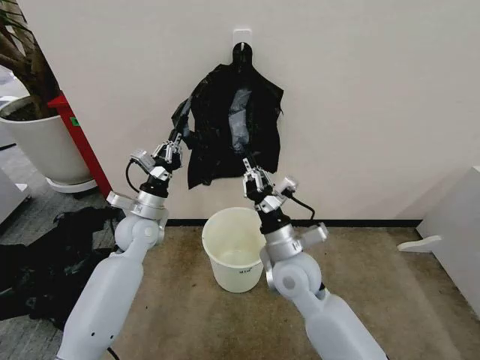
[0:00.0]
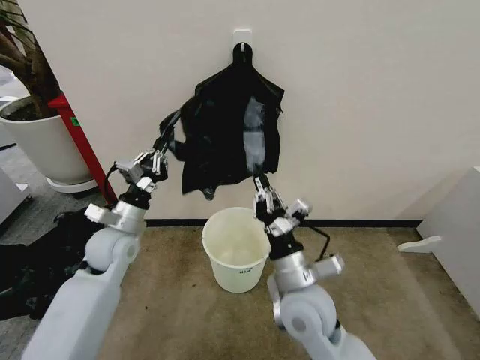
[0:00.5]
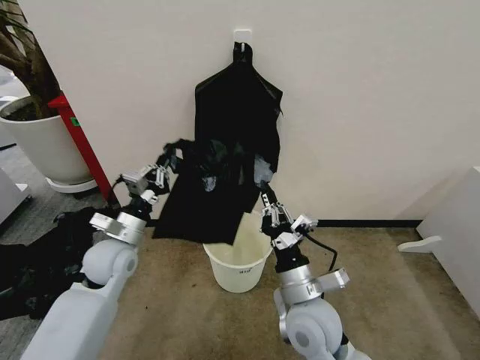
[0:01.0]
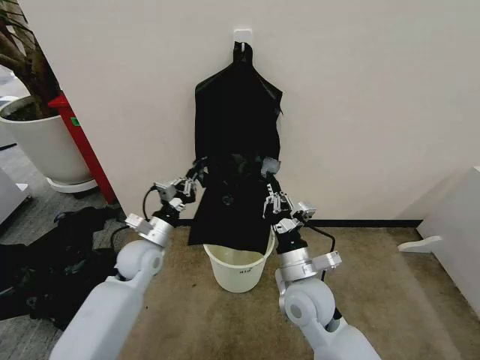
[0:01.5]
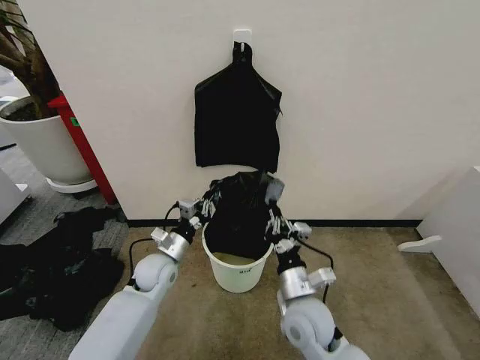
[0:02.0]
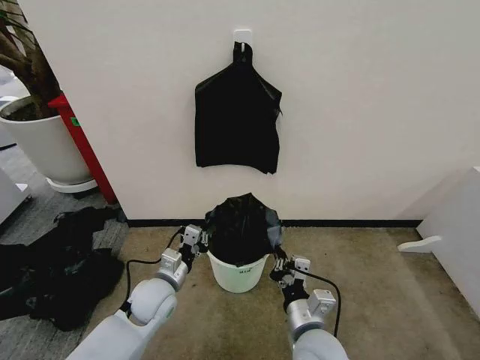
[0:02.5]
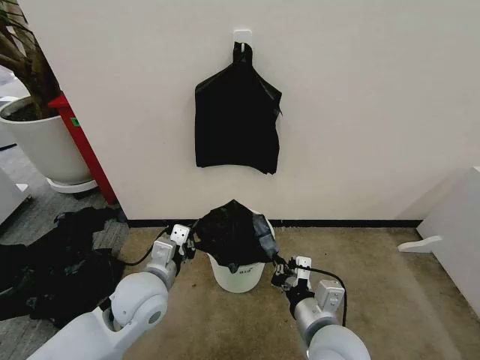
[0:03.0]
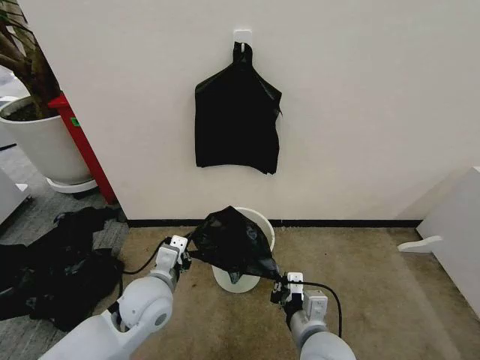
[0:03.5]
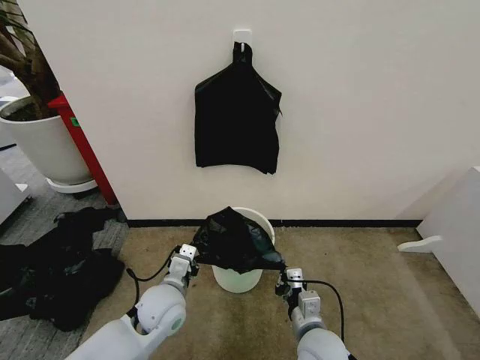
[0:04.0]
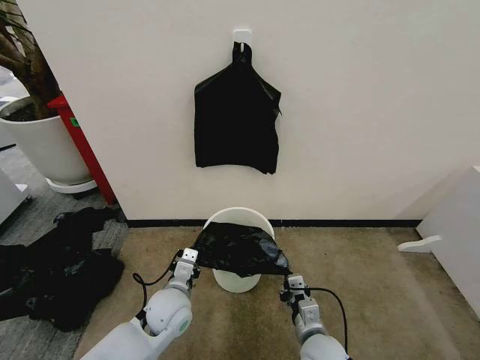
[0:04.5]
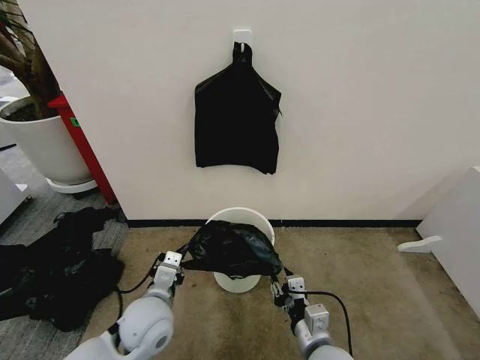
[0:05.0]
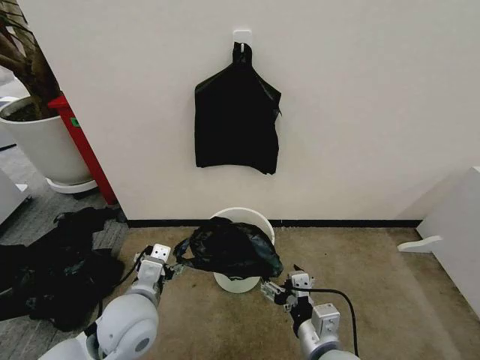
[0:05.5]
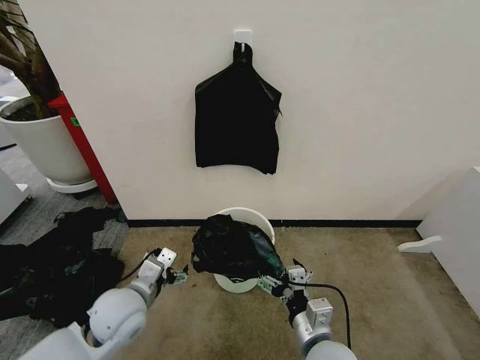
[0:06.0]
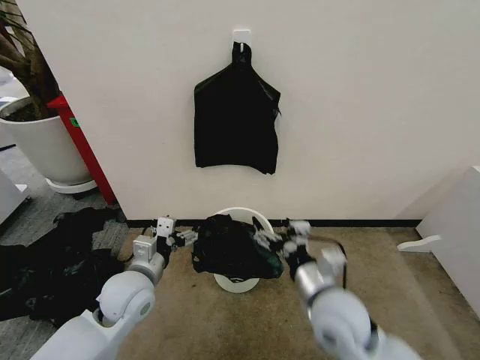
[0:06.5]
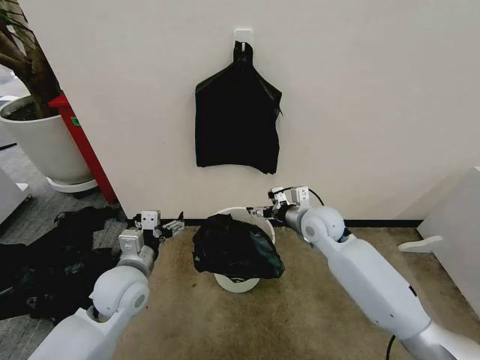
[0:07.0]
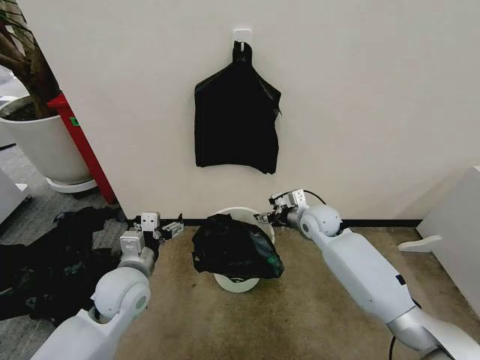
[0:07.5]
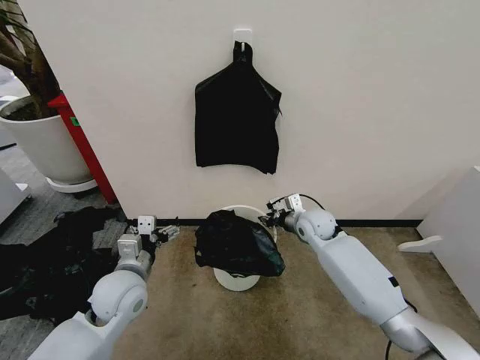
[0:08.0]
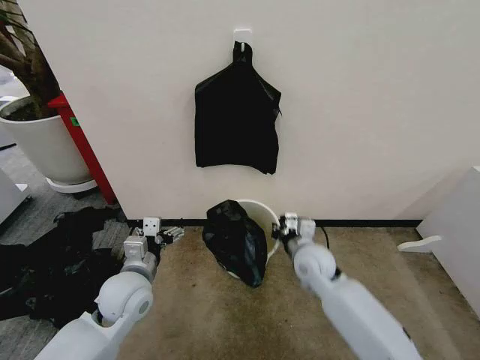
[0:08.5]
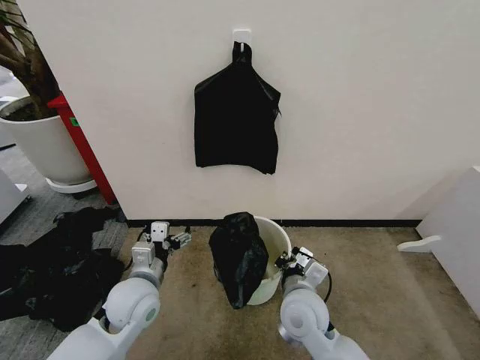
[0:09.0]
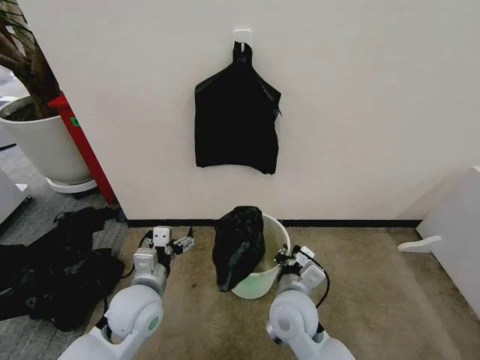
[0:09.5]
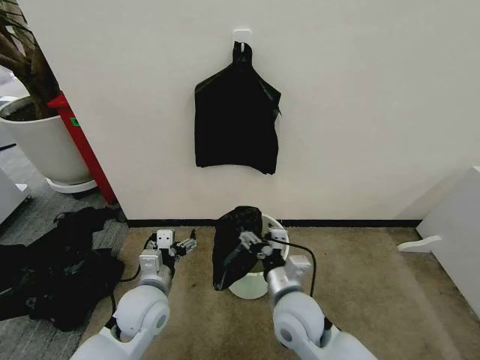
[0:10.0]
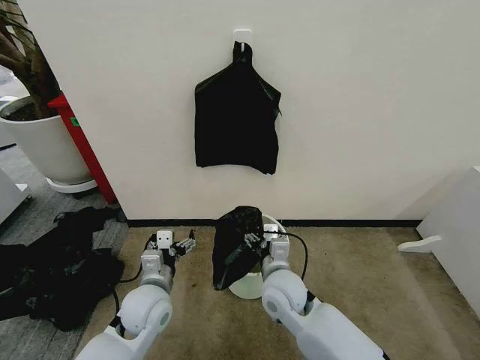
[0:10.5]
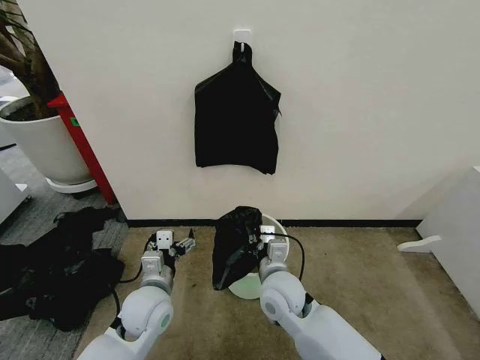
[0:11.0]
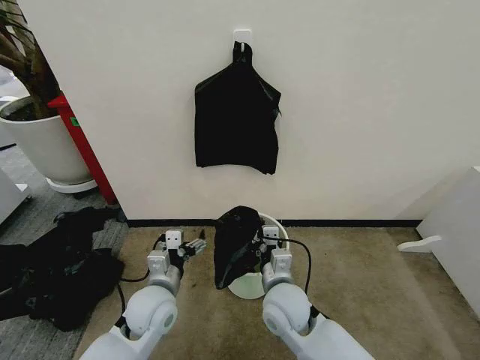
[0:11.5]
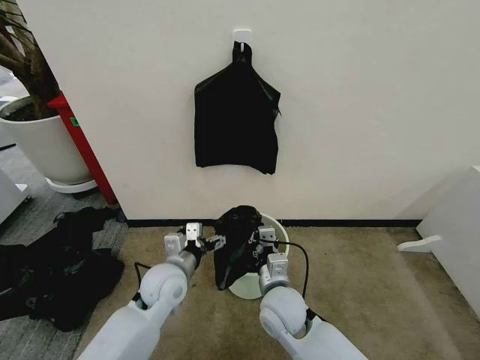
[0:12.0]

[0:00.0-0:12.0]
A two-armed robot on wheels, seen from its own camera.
Task of the whole recording: Place the garbage bag over the trash bin.
0:00.0 to 0:02.0: The right gripper travels backward and downward by about 10 cm. The left gripper is displaced downward and backward by roughly 10 cm.
0:02.0 to 0:04.0: The right gripper ends up approximately 5 cm from where it was. Meanwhile the left gripper travels backward and to the right by roughly 10 cm, and goes upward and returns, about 10 cm each way.
0:04.0 to 0:06.0: The right gripper moves upward, about 5 cm, and opens; the left gripper travels to the left by approximately 5 cm, and opens.
0:06.0 to 0:08.0: The right gripper heads forward, covering about 30 cm, and closes its fingers.
0:08.0 to 0:10.0: The right gripper moves backward and to the left, roughly 25 cm, and opens its fingers; the left gripper ends up about 5 cm from where it was.
0:10.0 to 0:12.0: The right gripper closes; the left gripper goes roughly 5 cm forward.

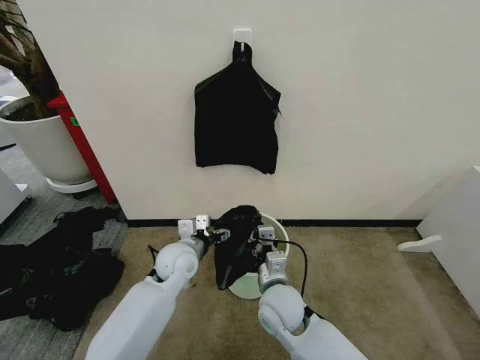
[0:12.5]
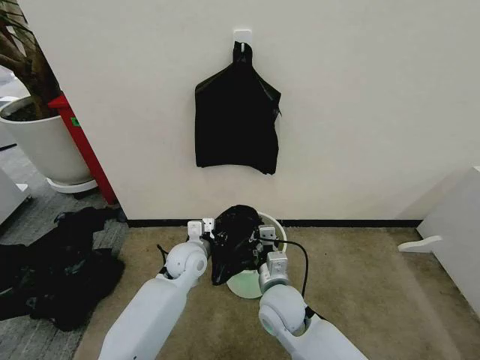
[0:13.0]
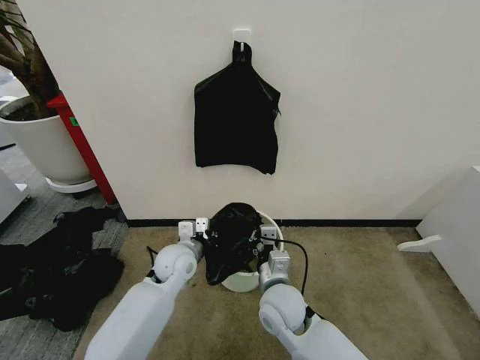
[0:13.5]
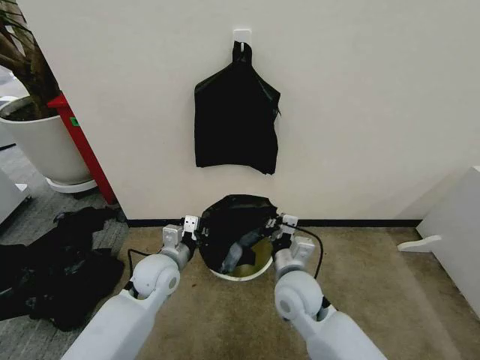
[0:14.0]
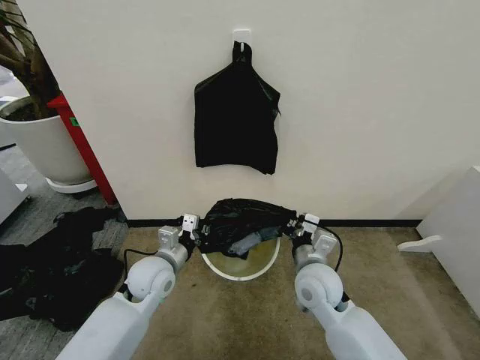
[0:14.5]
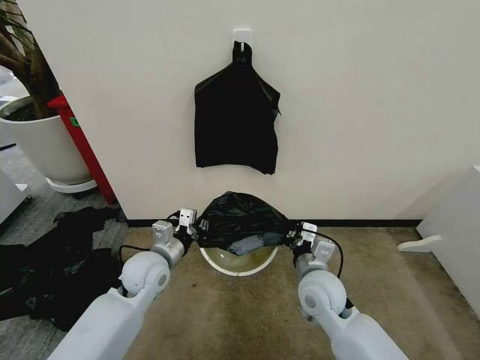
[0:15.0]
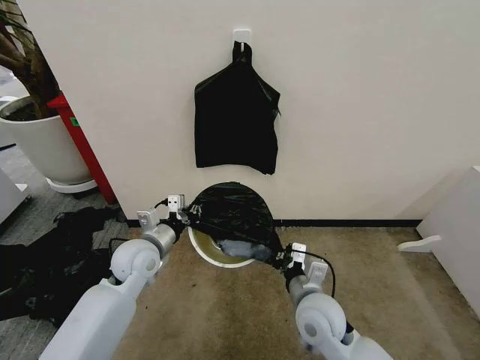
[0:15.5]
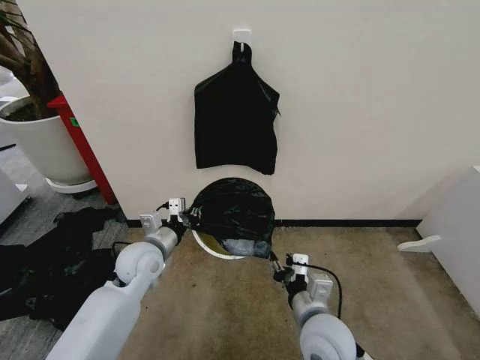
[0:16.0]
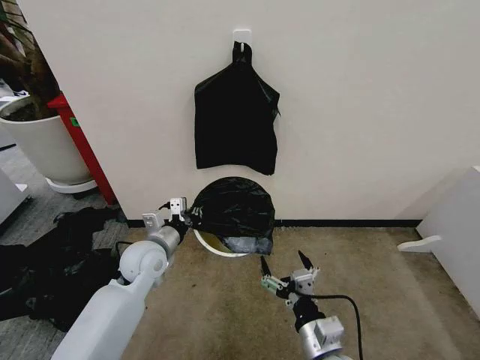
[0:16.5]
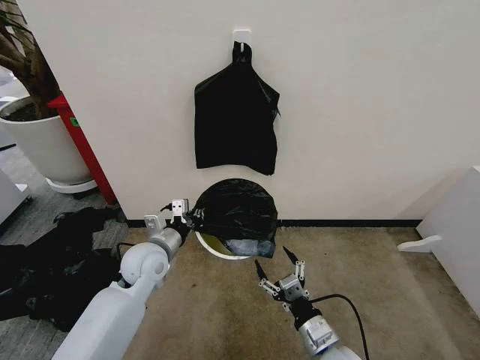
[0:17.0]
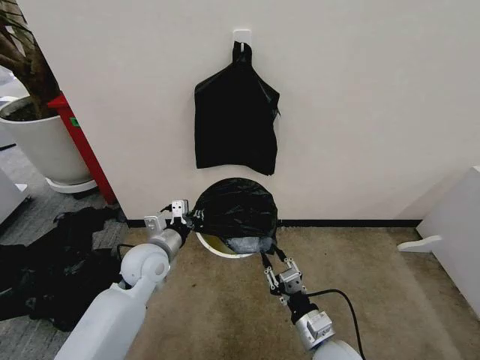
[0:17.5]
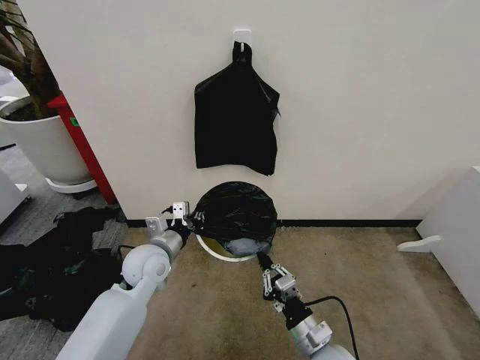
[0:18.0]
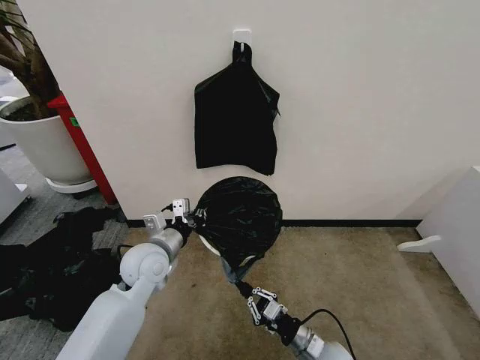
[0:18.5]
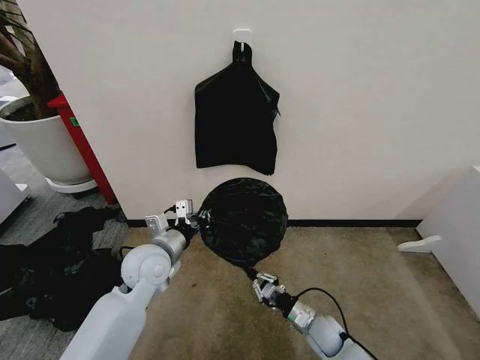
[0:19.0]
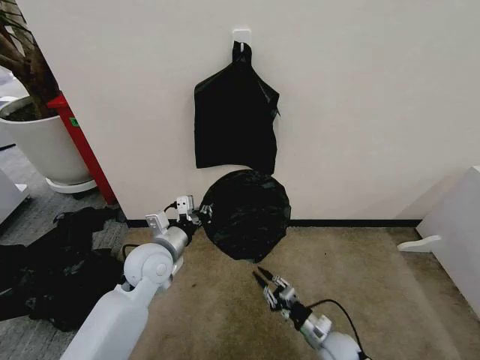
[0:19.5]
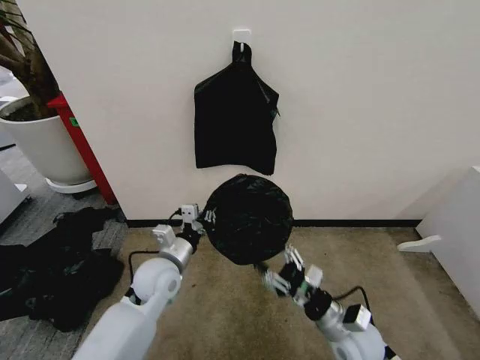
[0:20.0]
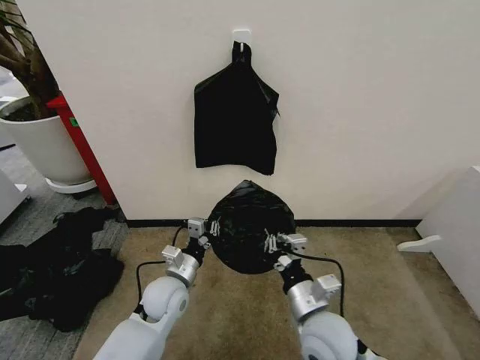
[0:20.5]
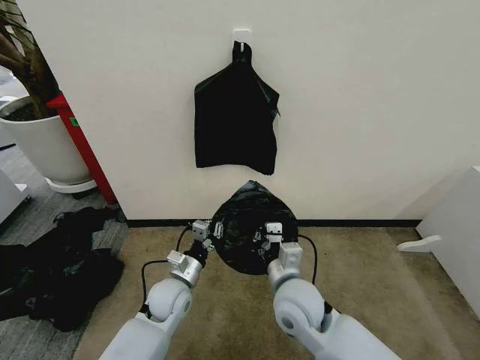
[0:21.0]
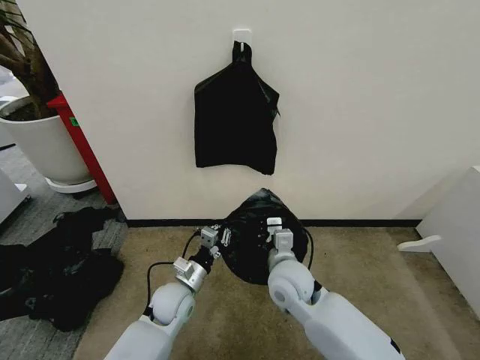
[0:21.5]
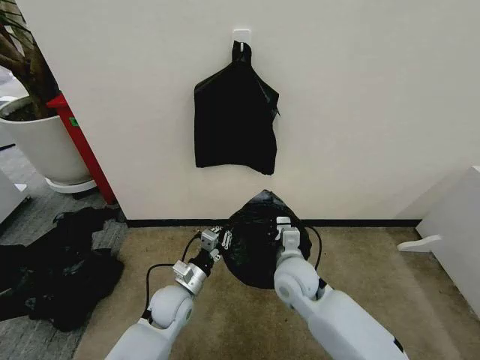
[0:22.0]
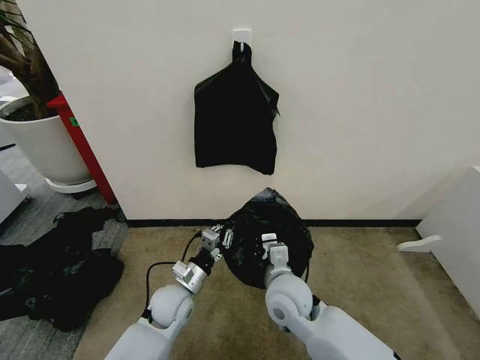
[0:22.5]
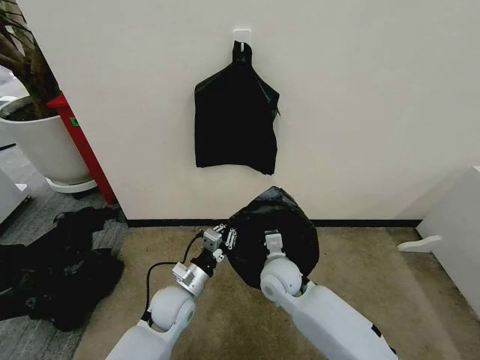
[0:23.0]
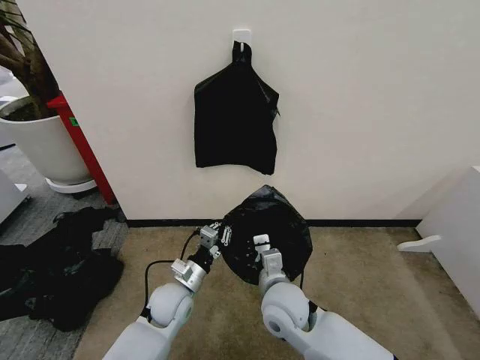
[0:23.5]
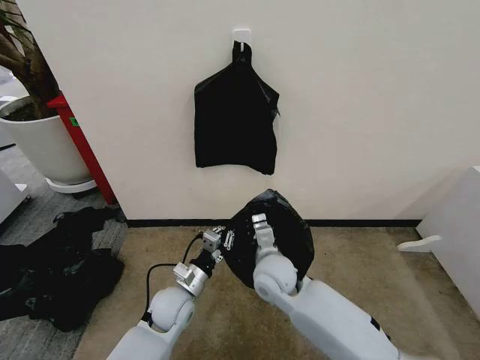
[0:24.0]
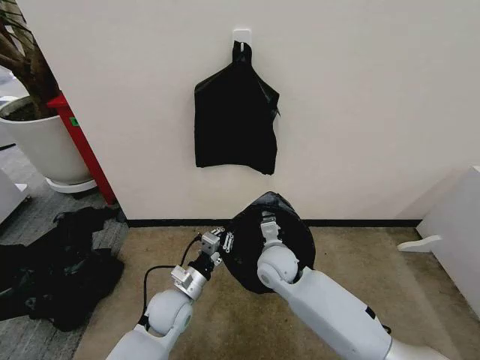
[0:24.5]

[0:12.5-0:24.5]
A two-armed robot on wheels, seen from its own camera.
Task of the whole recording: Place the garbage bag over the trash bin.
0:12.5 to 0:14.5: The left gripper moves to the left, approximately 5 cm, and closes up. Meanwhile the right gripper moves to the right, roughly 10 cm.
0:14.5 to 0:16.5: The right gripper goes approximately 15 cm backward, and opens its fingers.
0:16.5 to 0:18.5: The right gripper travels downward by approximately 15 cm, and closes its fingers.
0:18.5 to 0:20.5: The left gripper heads downward, covering roughly 10 cm. Meanwhile the right gripper is displaced upward by about 20 cm, and opens, then closes again.
0:20.5 to 0:22.5: The right gripper heads forward and to the left, covering roughly 10 cm.
0:22.5 to 0:24.5: The right gripper goes forward and backward, some 10 cm each way, reversing 2 times.

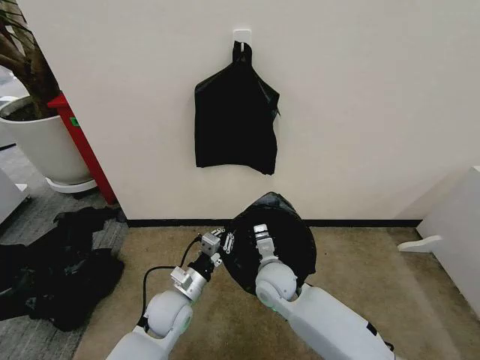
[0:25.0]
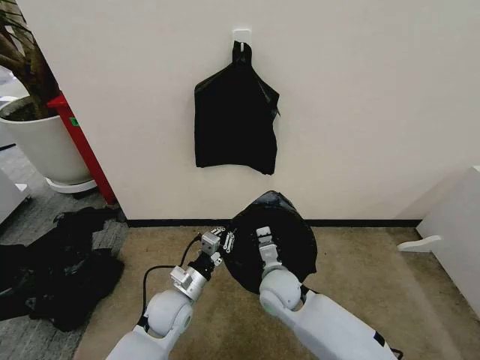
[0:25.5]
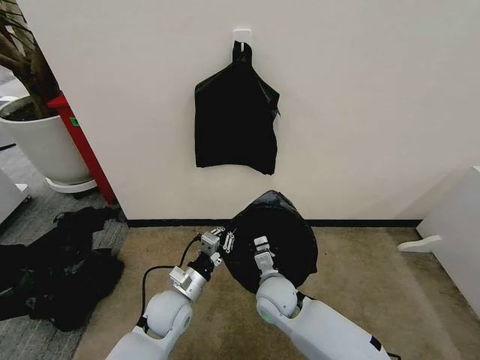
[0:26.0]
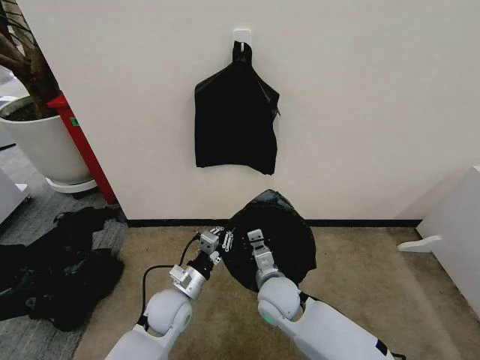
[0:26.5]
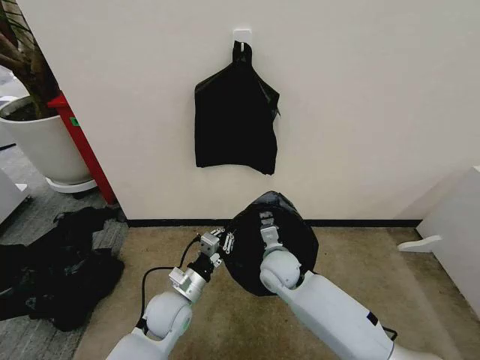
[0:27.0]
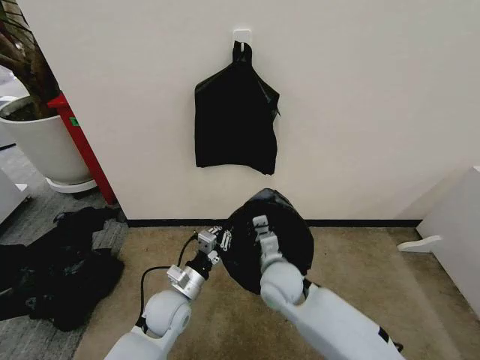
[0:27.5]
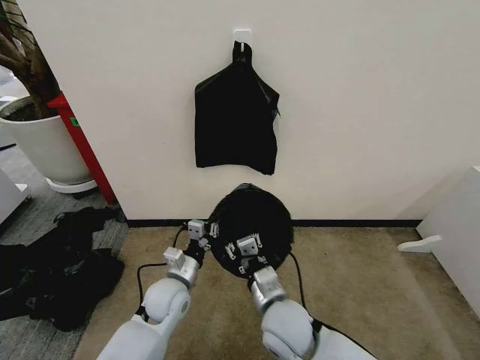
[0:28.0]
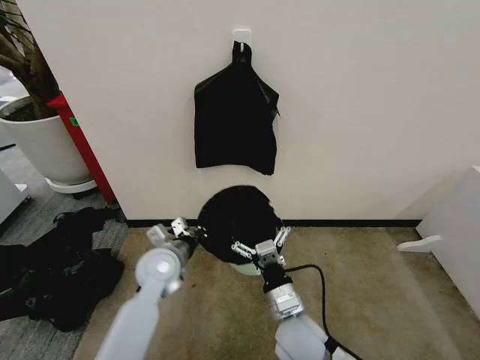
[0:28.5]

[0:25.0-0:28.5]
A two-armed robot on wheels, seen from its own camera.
Task of the whole recording: Place the garbage bag over the trash bin.
0:25.0 to 0:27.0: The grippers stay close to where they were, moving slightly.
0:27.0 to 0:28.5: The right gripper is displaced backward by about 15 cm, and opens up; the left gripper shifts roughly 10 cm upward and forward.
